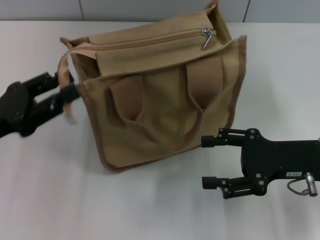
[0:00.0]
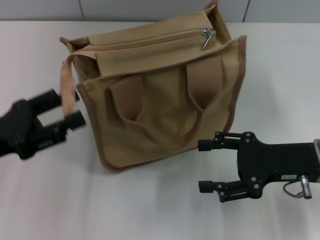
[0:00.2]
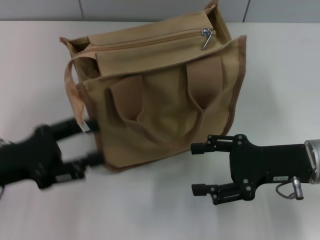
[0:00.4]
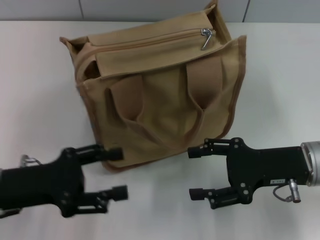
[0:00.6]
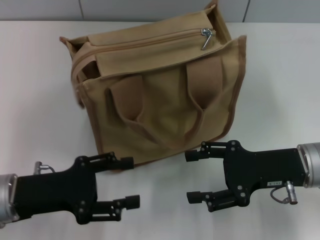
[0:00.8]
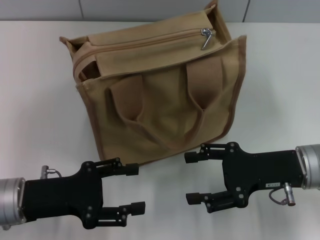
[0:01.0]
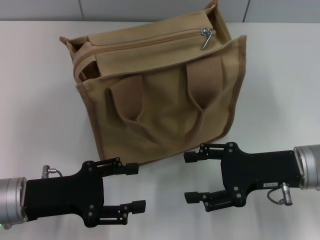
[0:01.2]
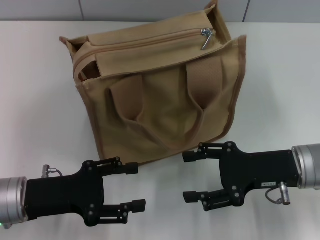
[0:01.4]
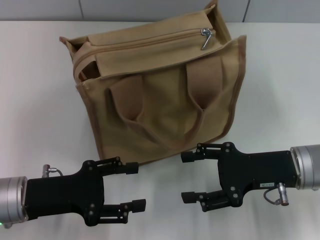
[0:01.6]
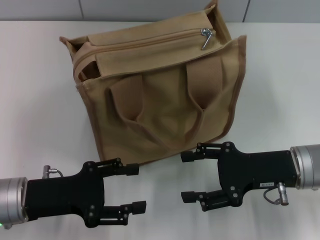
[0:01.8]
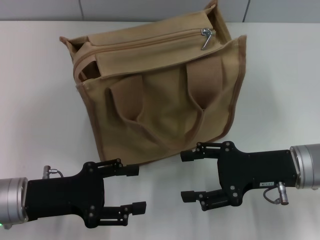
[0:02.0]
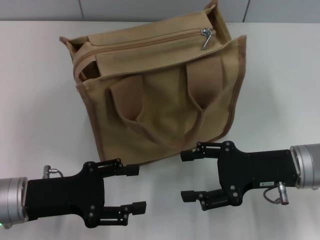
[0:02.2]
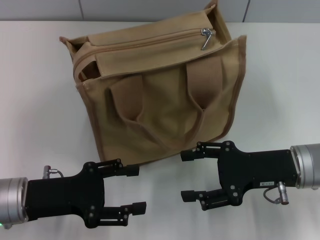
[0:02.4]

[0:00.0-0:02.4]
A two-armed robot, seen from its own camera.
0:00.0 to 0:01.2: The left gripper heads to the right and downward, covering approximately 10 cm, and opens its fingers.
0:01.2 to 0:02.4: Both grippers stay about where they are.
